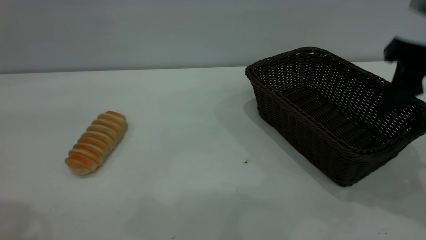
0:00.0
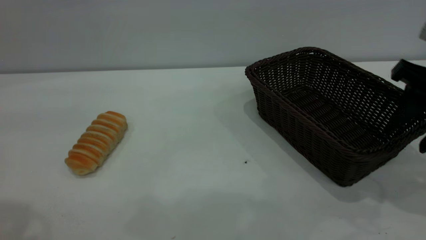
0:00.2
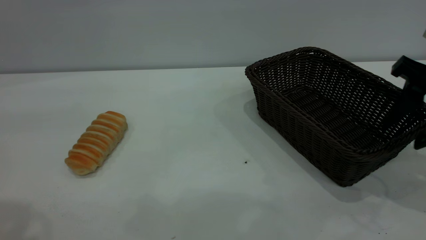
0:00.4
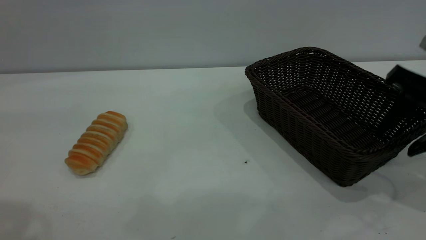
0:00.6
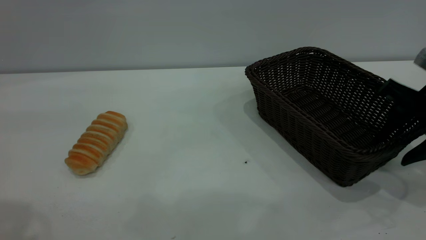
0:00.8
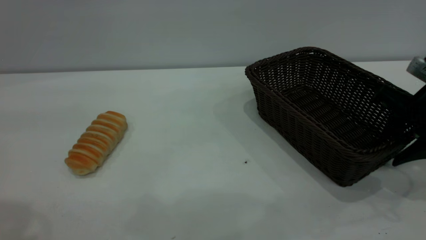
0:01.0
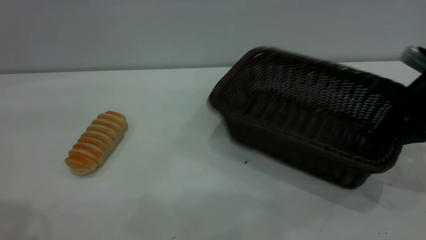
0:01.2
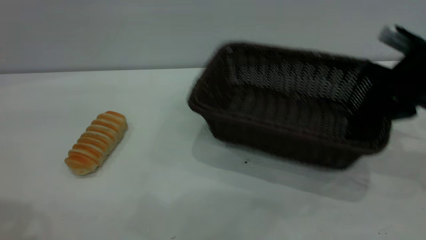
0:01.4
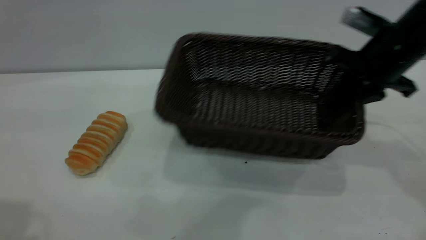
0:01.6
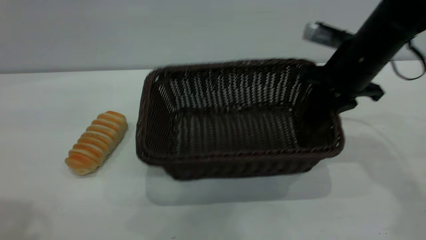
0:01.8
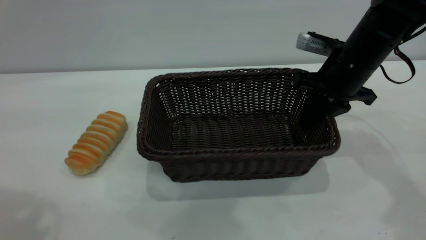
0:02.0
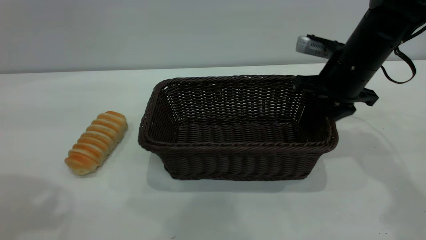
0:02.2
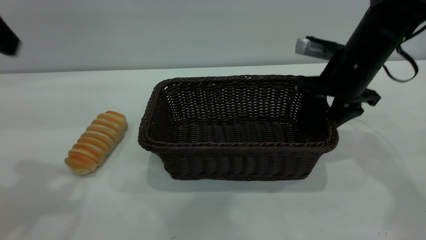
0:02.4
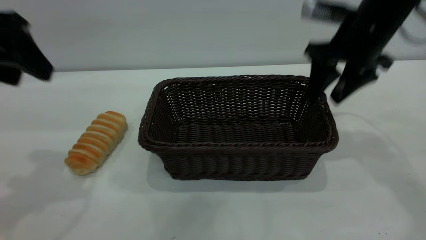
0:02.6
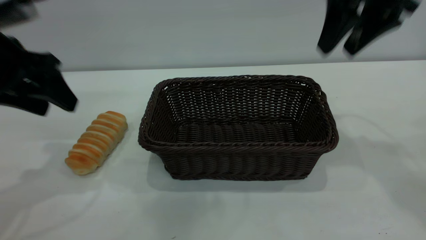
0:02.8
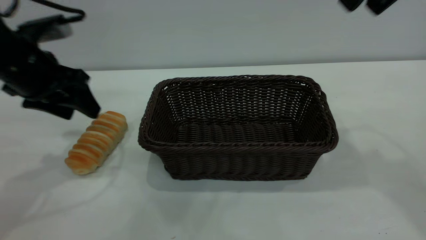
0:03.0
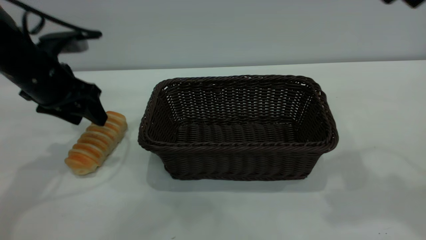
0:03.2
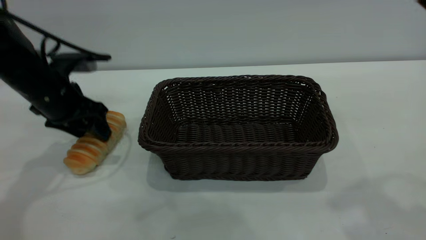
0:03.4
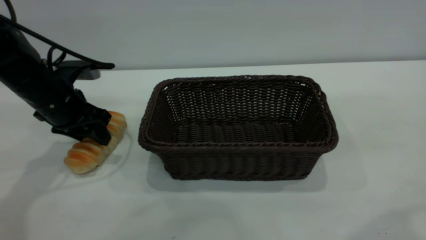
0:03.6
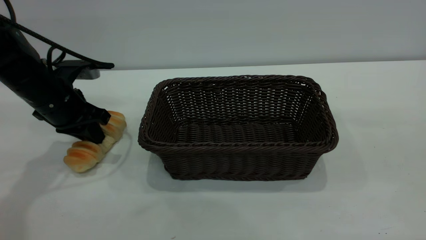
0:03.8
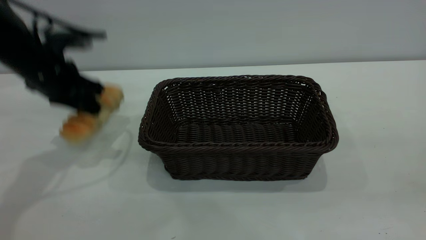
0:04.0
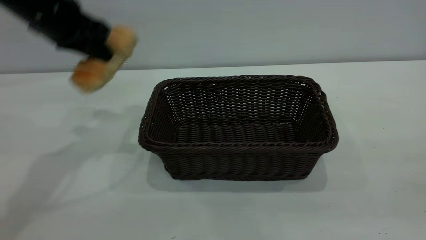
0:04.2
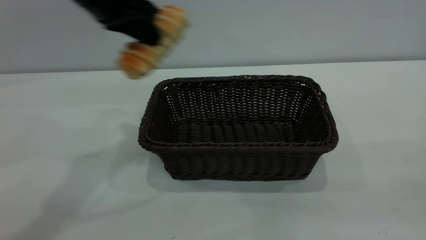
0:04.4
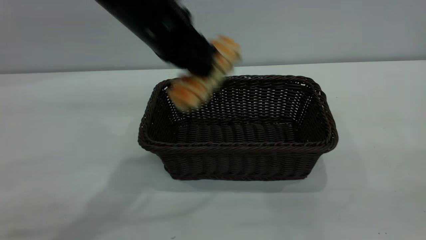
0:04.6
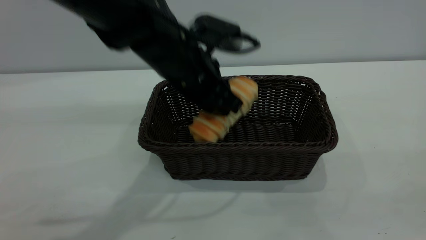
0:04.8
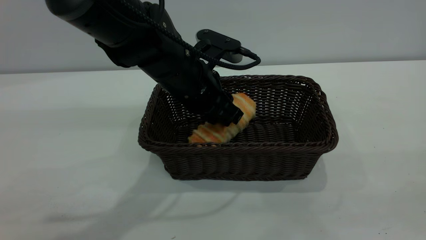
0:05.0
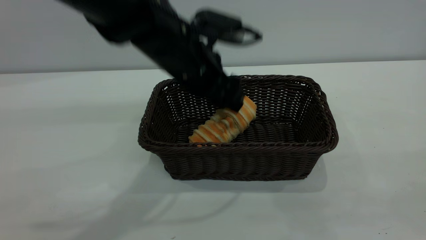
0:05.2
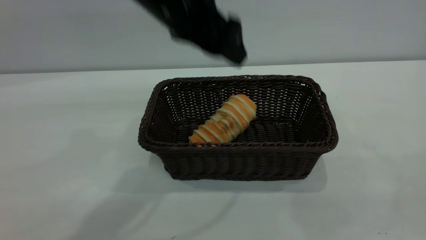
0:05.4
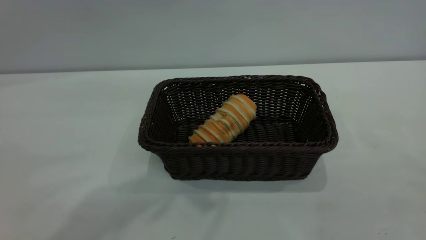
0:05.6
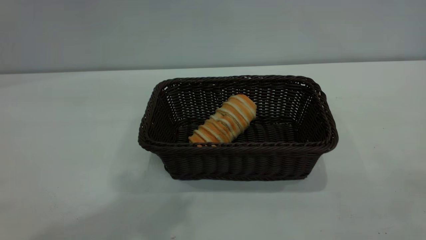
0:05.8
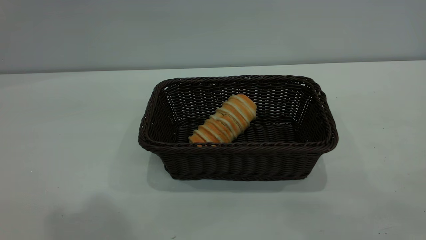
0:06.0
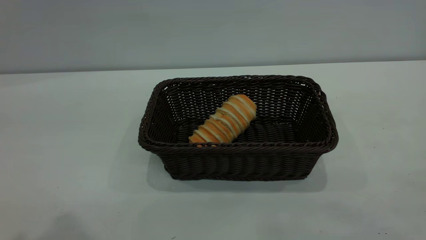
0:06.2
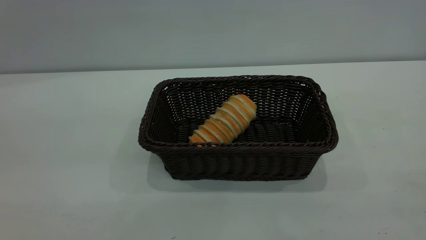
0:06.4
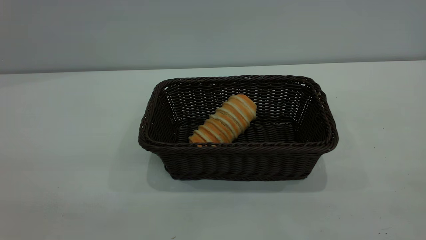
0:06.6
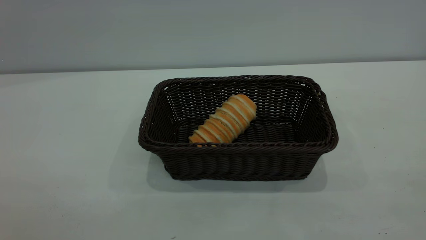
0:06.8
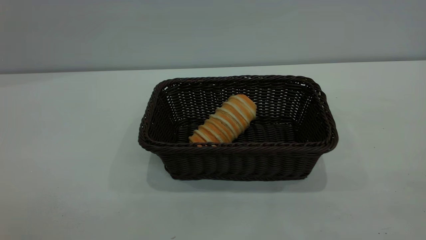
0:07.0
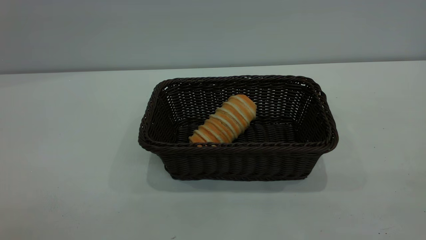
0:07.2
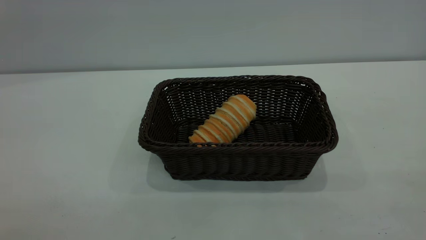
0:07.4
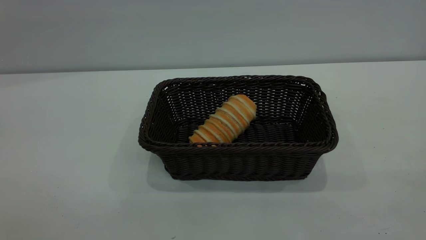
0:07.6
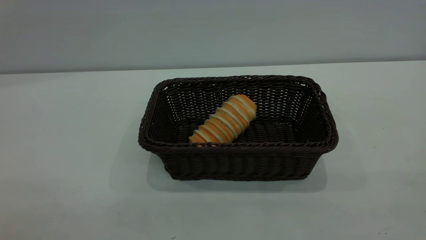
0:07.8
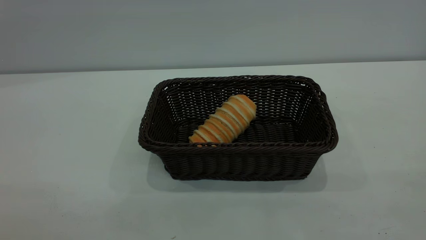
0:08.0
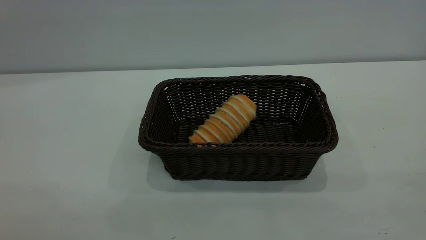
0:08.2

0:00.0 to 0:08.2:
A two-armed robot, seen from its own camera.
Task of the whole recording: One hand grasps the black basket and places it in the middle of the table, while the other hand picks up the long bread and puts it into the black basket.
Step, 0:00.0 to 0:02.6: Move the basket to the center of view.
Step, 0:04.2 to 0:05.4: place the bread into the basket.
0:00.0 to 0:01.6: The right gripper goes some 10 cm forward, and closes up.
0:01.6 to 0:03.2: The right gripper moves upward and backward, roughly 25 cm, and opens. The left gripper heads downward and forward, covering roughly 30 cm.
0:03.2 to 0:05.0: The left gripper moves to the right, approximately 20 cm, and closes up. The right gripper moves backward, approximately 25 cm.
0:05.0 to 0:06.6: The left gripper moves backward, to the left and upward, approximately 40 cm, and opens up.
